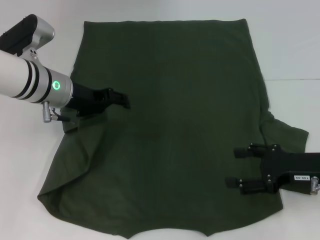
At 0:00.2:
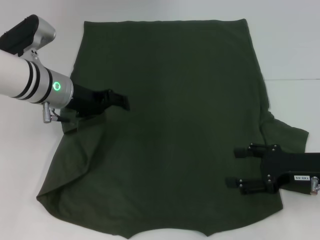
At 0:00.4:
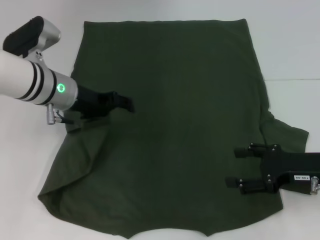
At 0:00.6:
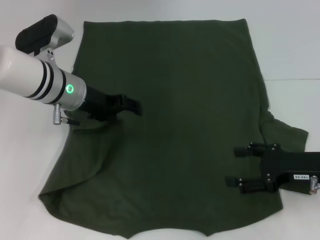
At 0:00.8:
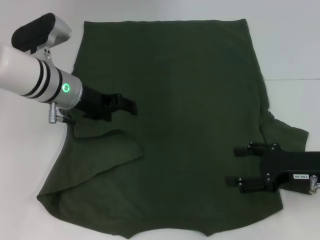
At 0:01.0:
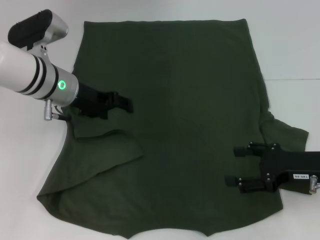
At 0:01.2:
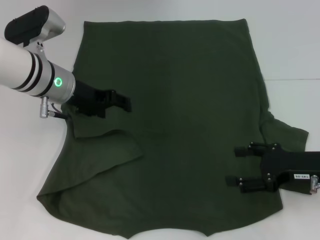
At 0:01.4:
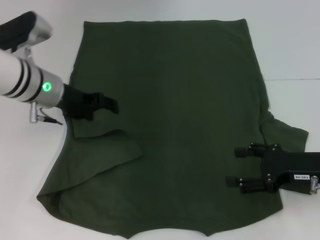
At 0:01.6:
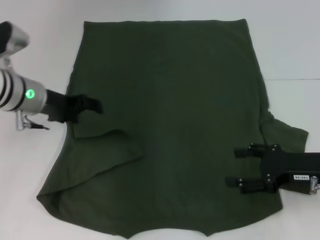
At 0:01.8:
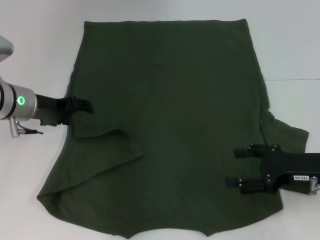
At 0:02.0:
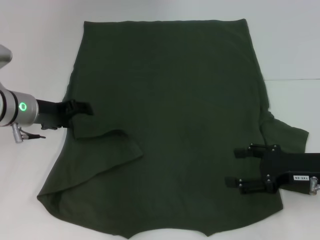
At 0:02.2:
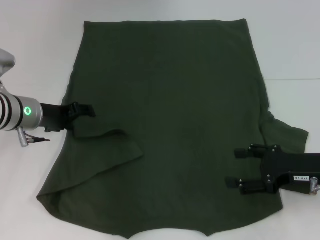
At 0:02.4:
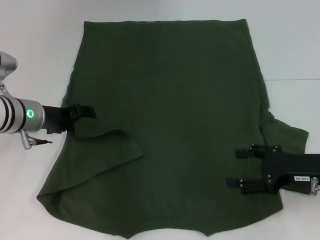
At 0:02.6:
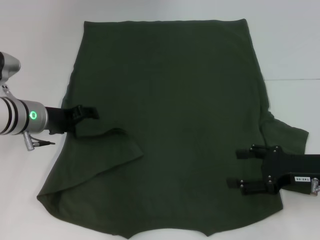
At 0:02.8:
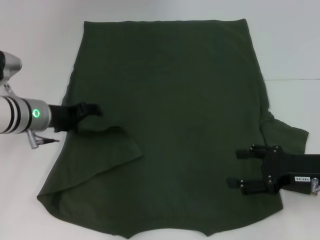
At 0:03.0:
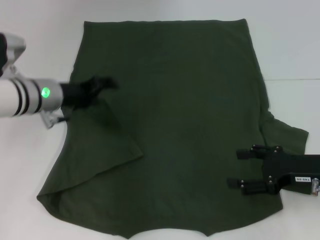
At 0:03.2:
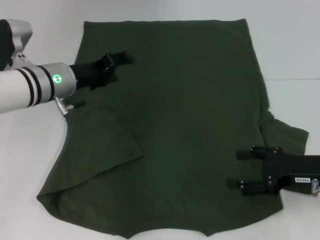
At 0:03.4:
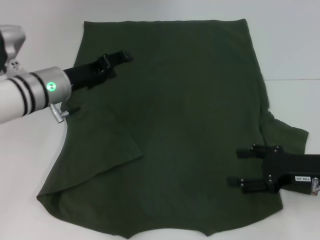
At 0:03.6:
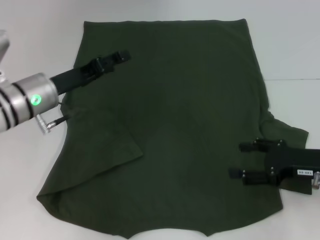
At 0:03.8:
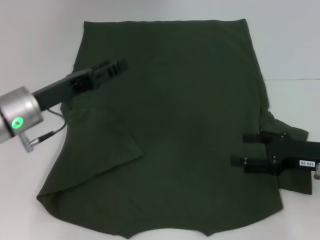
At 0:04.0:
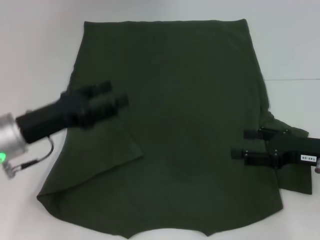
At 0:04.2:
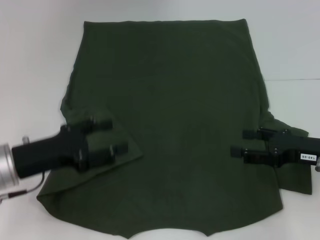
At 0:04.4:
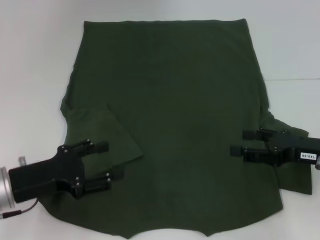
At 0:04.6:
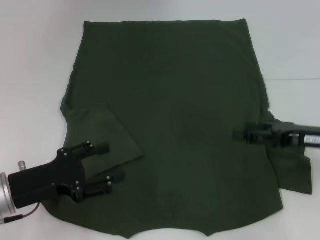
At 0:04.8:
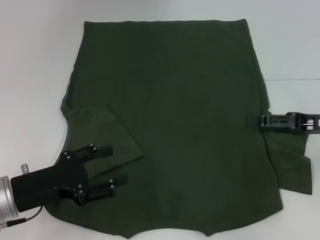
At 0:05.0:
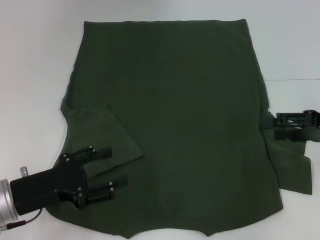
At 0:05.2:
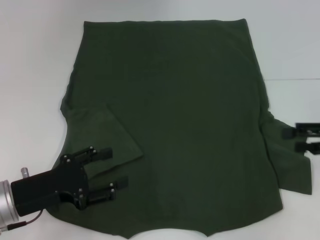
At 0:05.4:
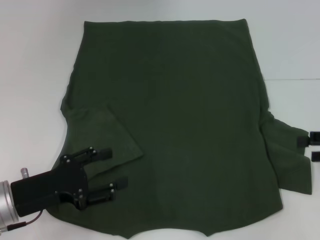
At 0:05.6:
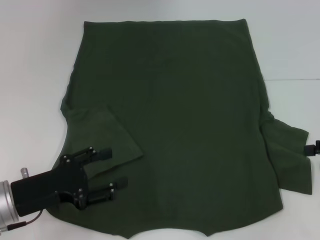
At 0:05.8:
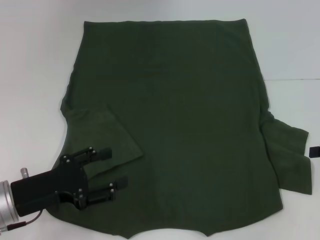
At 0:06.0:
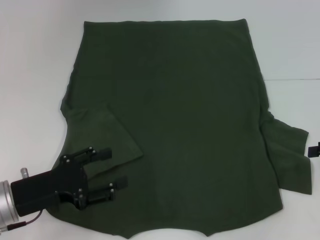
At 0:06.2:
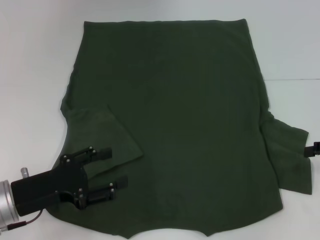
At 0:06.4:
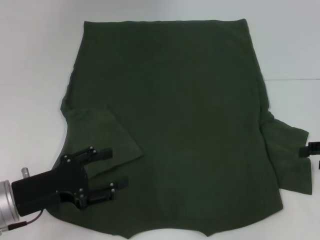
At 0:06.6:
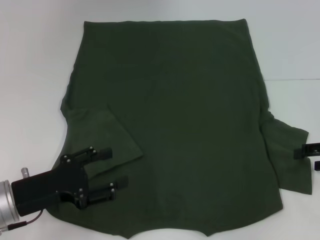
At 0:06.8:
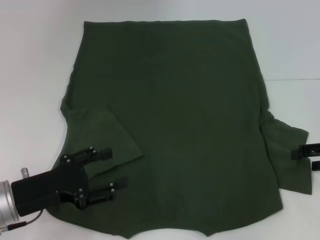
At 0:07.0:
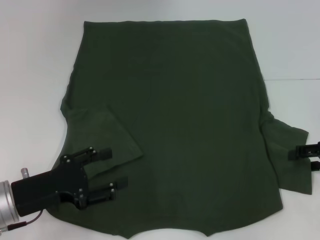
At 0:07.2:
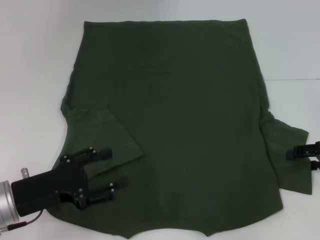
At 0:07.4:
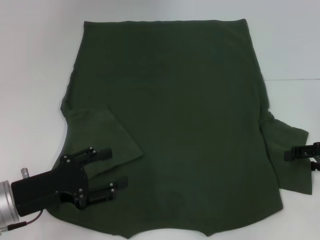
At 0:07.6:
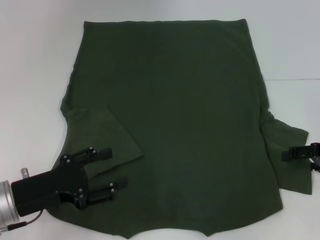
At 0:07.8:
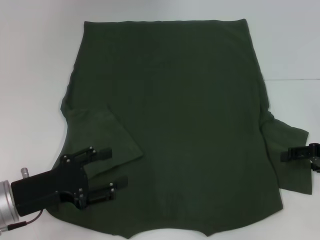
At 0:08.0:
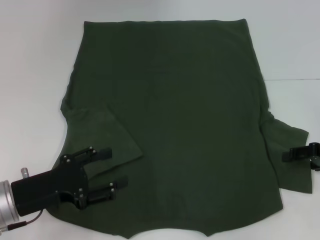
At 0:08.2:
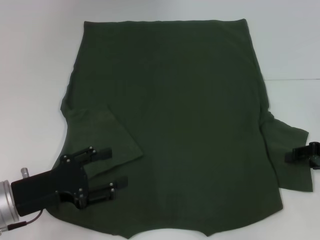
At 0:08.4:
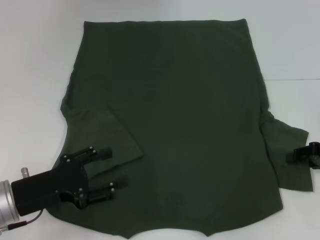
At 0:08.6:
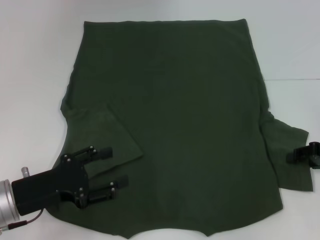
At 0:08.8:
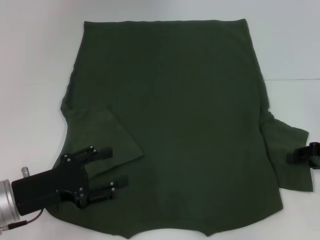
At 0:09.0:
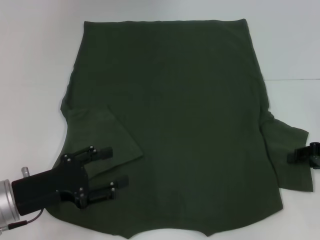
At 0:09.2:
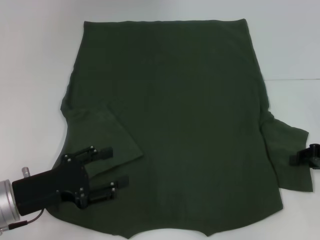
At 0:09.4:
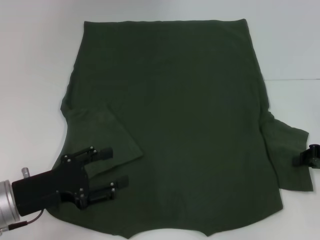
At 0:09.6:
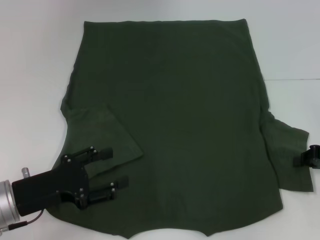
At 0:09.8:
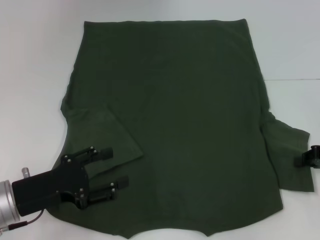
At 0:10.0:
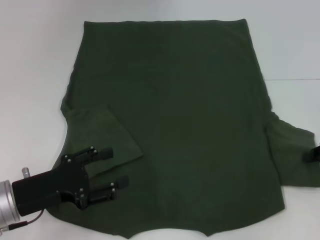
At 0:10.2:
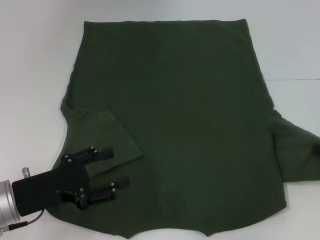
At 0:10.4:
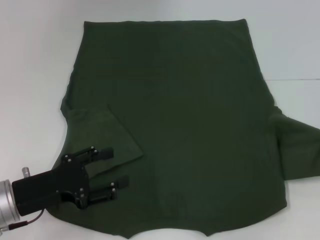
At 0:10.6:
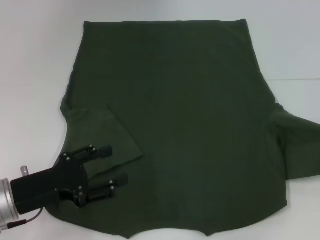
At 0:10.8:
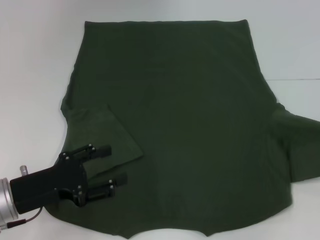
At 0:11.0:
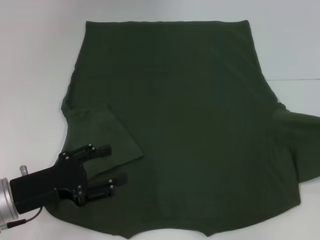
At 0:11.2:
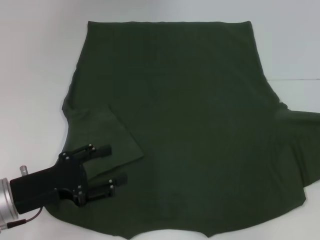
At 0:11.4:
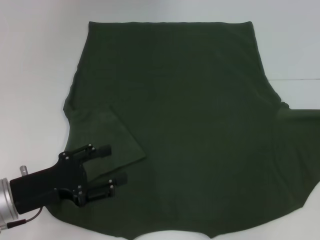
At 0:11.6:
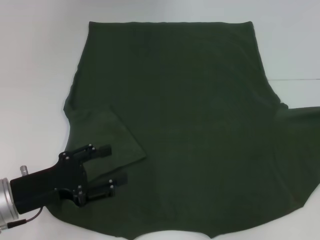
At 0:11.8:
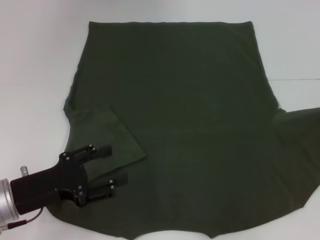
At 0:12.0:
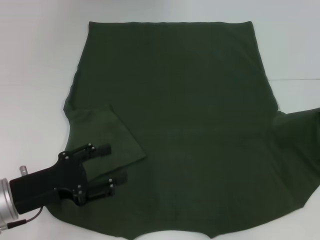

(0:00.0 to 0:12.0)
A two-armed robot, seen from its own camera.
Step, 0:00.0 - 0:03.0: Fold the bottom left sleeve with your left hand.
0:00.0 - 0:01.6: The grippers make only small movements.
0:01.6 - 0:03.0: The grippers make only small movements.
0:03.0 - 0:04.4: The left gripper shifts approximately 15 cm backward.
0:04.4 - 0:06.0: The right gripper travels to the right by about 10 cm.
0:06.0 - 0:07.6: The right gripper changes place by approximately 5 cm.
0:09.0 - 0:10.4: The right gripper moves roughly 5 cm.
0:10.4 - 0:12.0: The right gripper moves about 5 cm.

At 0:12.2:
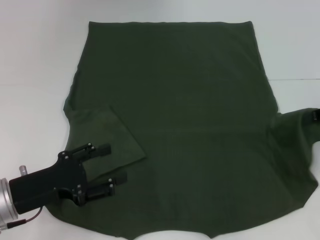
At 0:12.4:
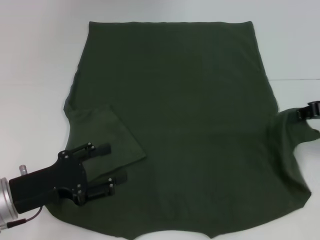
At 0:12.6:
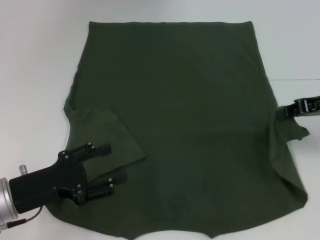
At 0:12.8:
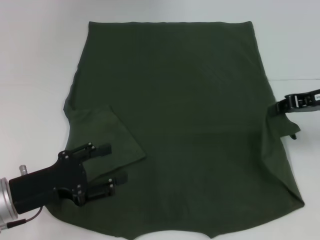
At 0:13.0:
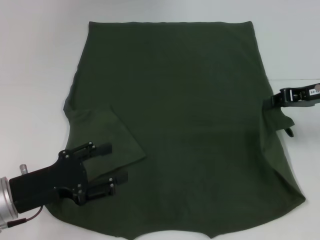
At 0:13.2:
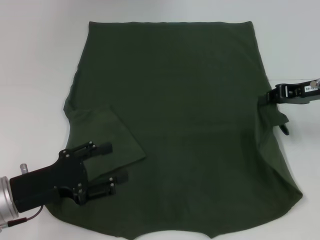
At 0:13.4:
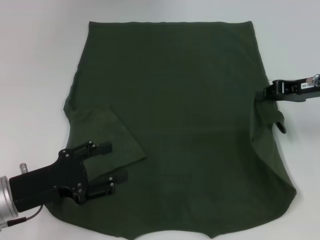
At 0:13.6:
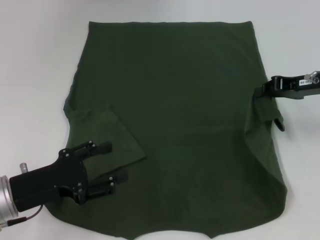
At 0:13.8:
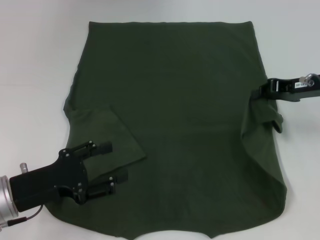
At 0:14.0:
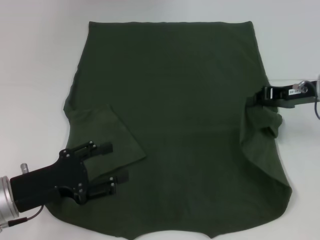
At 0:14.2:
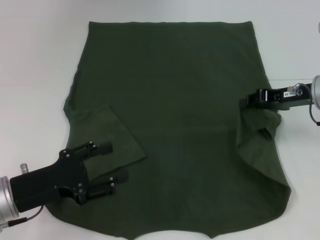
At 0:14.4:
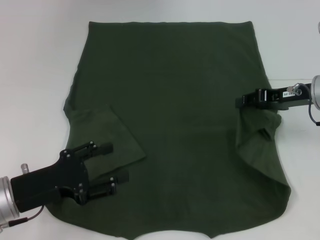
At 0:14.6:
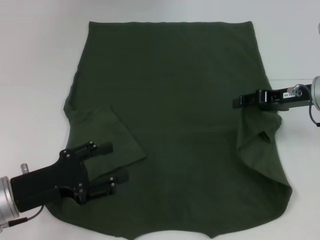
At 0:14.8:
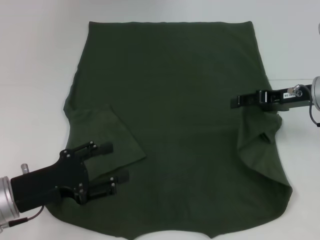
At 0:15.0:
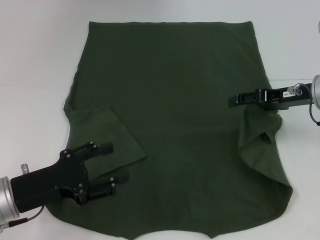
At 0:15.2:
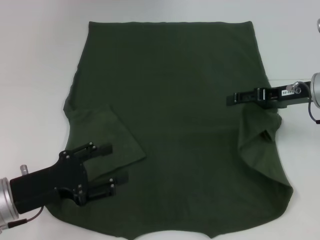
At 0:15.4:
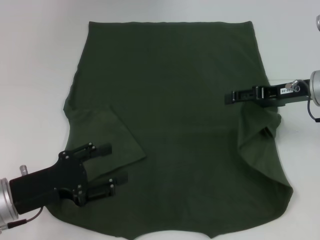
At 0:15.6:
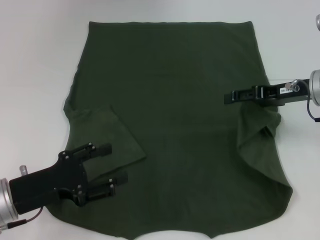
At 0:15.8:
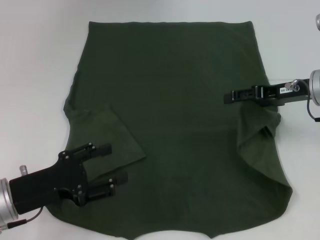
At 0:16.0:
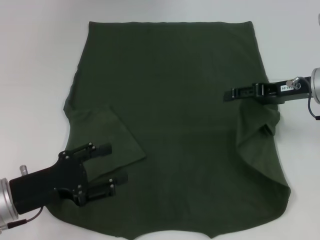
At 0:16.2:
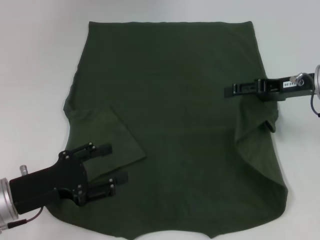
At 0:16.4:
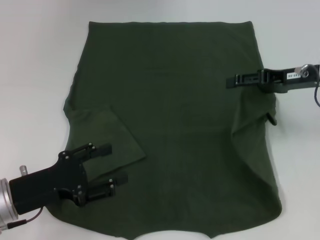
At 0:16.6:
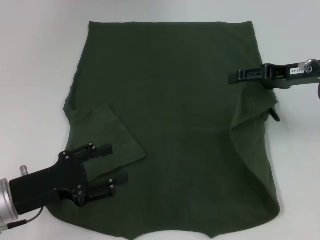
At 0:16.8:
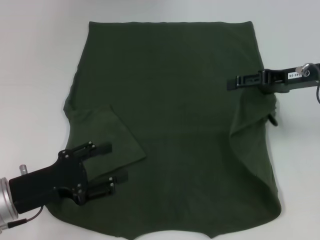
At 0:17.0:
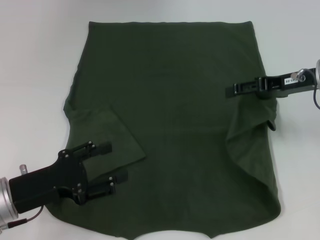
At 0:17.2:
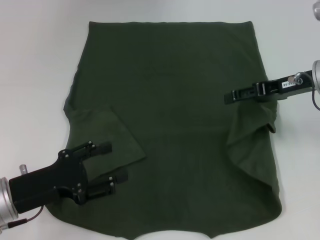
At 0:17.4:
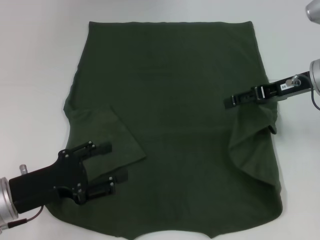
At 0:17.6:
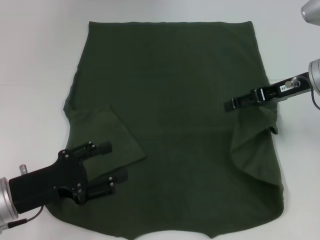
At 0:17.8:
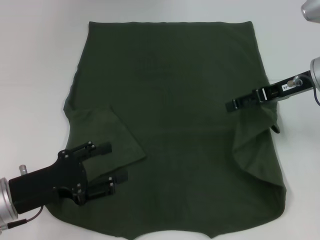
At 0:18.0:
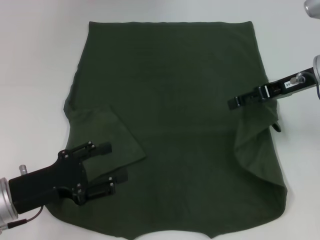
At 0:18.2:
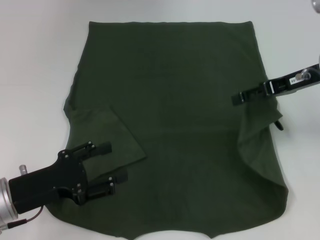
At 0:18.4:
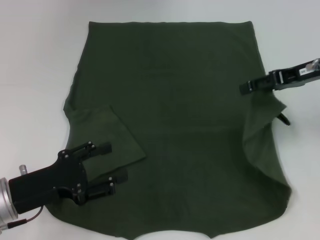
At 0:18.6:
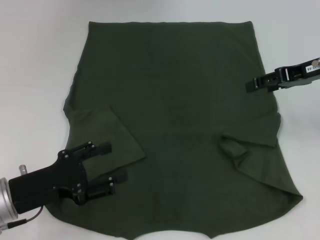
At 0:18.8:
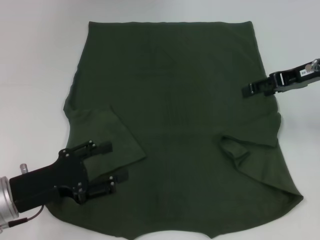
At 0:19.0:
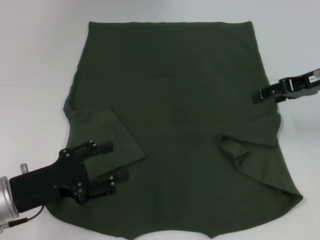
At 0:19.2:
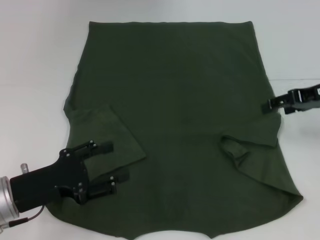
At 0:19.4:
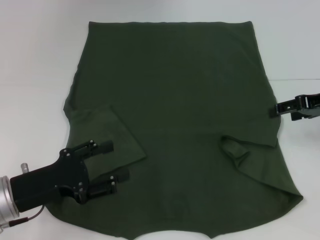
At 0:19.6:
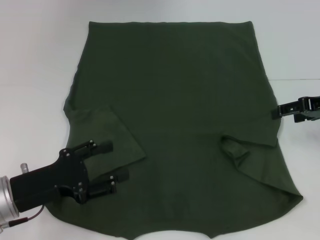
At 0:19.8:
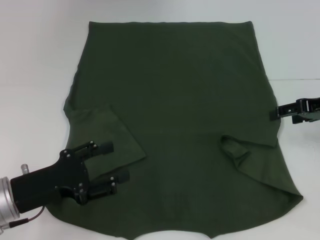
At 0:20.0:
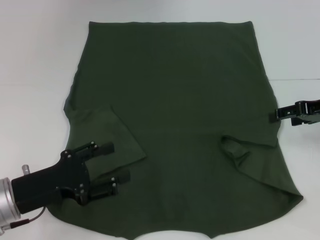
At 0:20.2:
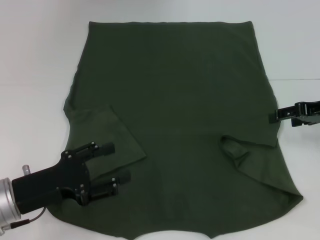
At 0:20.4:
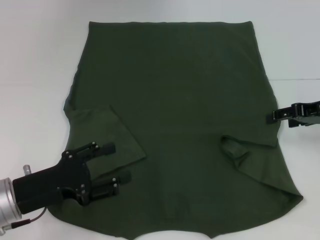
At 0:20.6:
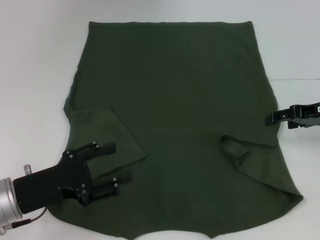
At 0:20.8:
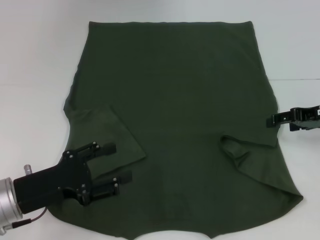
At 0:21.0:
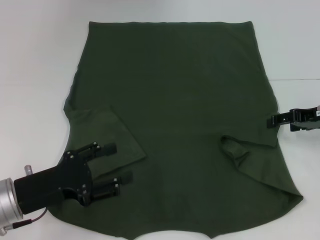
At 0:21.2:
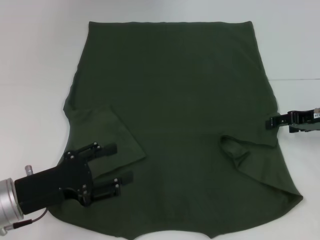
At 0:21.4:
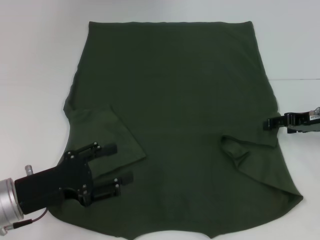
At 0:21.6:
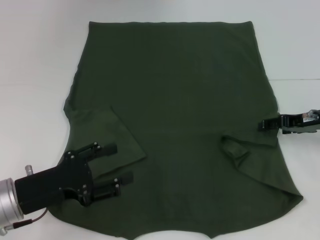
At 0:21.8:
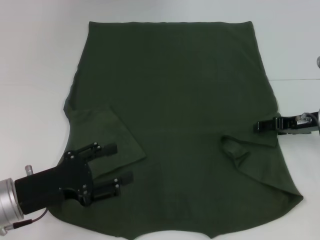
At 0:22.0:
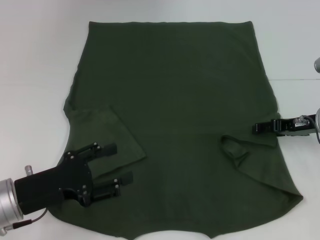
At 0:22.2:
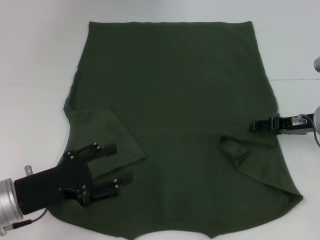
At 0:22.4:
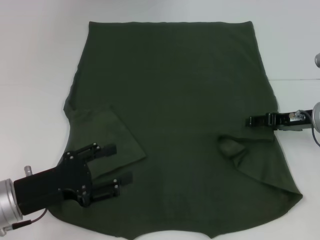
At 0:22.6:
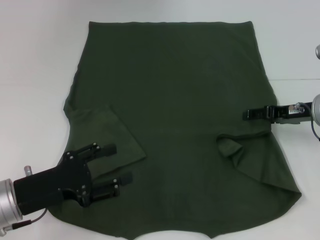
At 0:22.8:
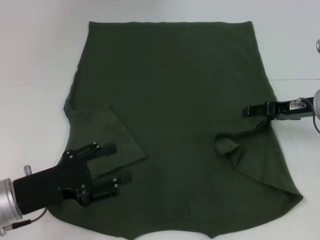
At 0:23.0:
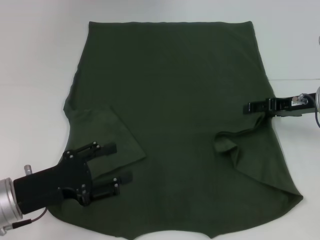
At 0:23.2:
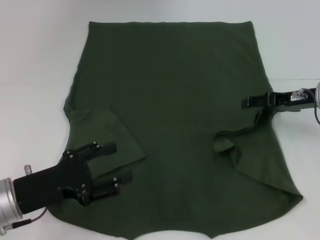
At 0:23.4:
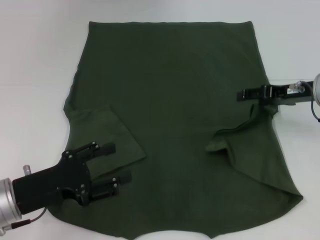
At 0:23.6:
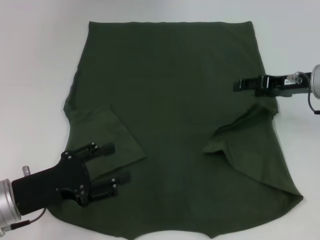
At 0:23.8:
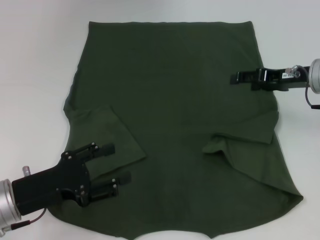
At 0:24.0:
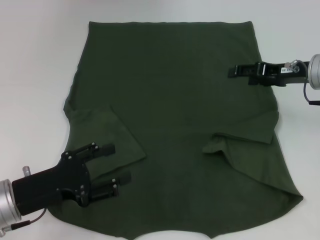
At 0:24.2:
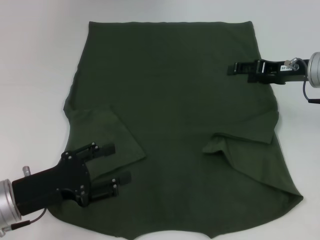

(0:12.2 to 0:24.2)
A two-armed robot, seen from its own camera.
0:12.2 - 0:13.8: The right gripper is displaced to the left by approximately 5 cm.
0:13.8 - 0:15.2: The right gripper opens its fingers.
0:15.2 - 0:18.2: The grippers stay close to where they were, moving slightly.
0:18.2 - 0:19.8: The right gripper moves to the right, some 5 cm.
0:19.8 - 0:21.2: The grippers move only a little.
0:21.2 - 0:22.6: The grippers move only a little.
0:22.6 - 0:24.2: The right gripper travels upward by about 5 cm.
